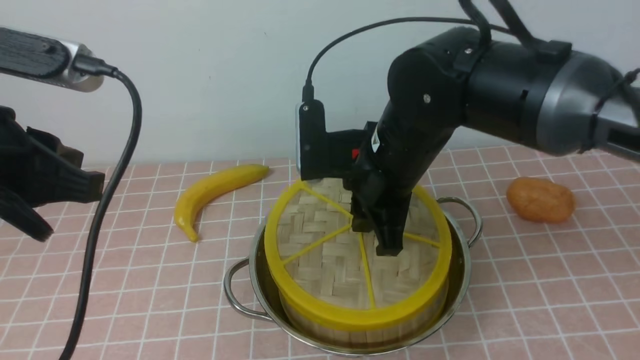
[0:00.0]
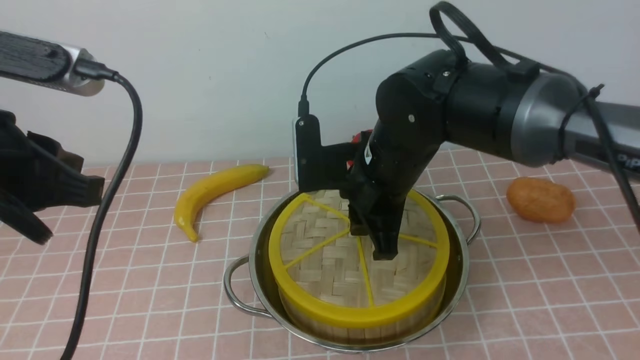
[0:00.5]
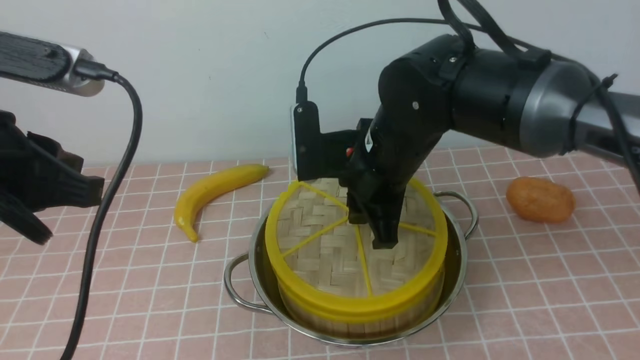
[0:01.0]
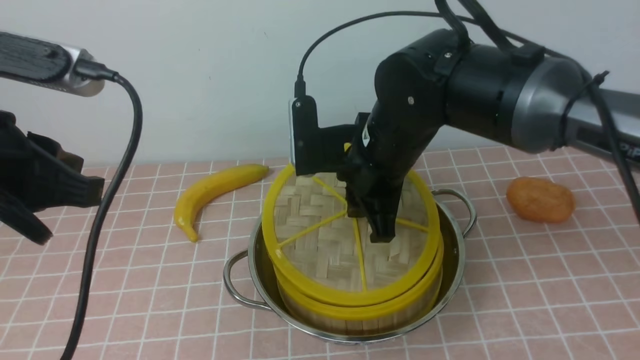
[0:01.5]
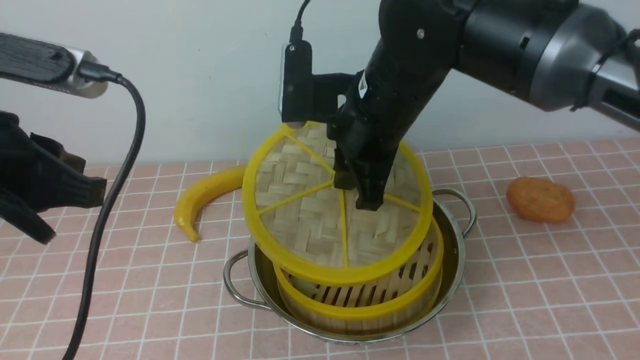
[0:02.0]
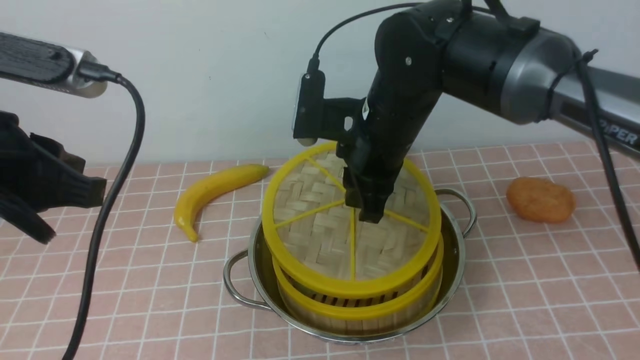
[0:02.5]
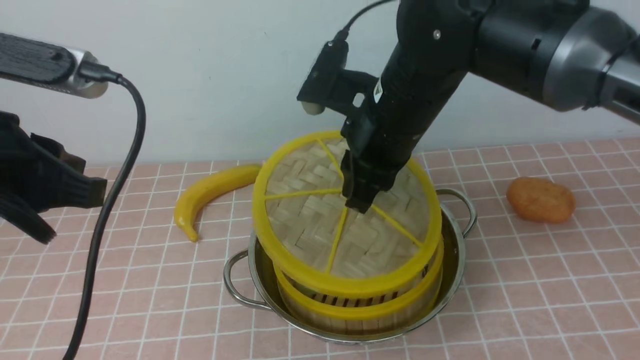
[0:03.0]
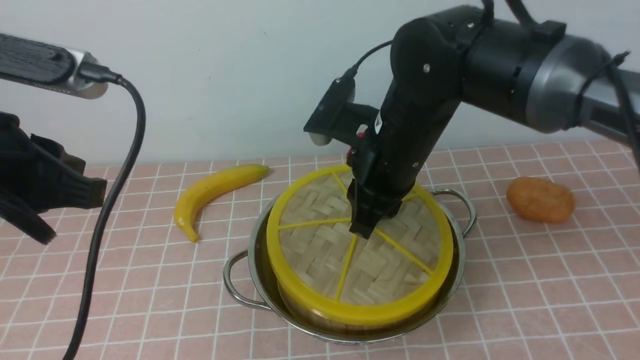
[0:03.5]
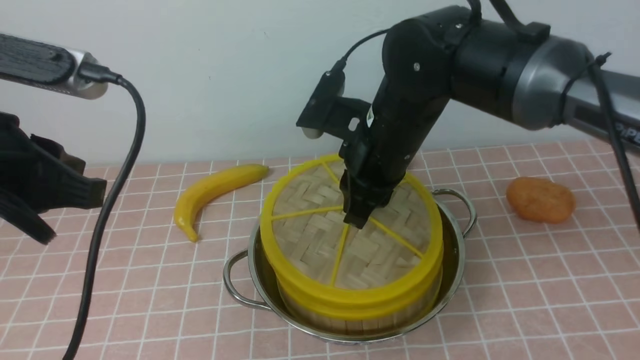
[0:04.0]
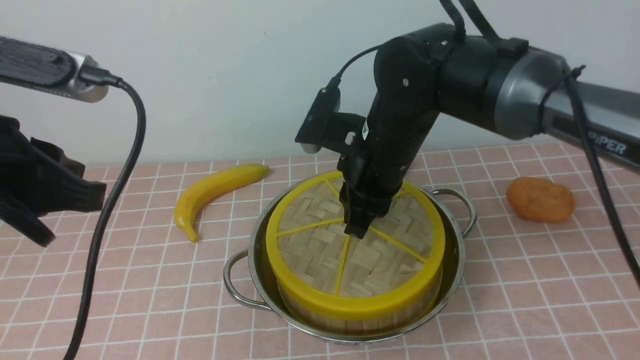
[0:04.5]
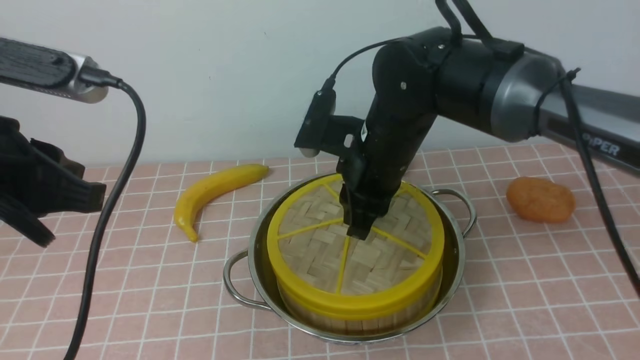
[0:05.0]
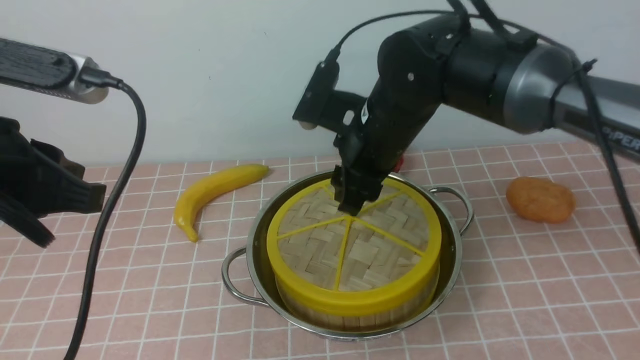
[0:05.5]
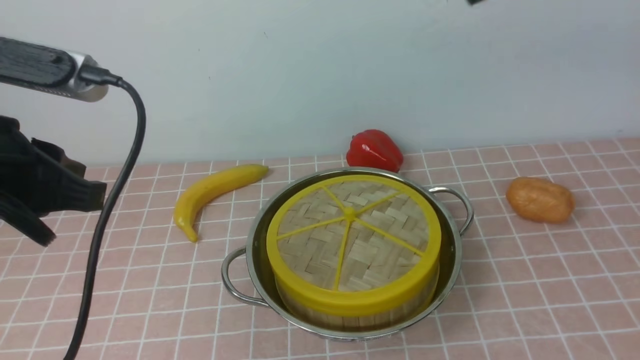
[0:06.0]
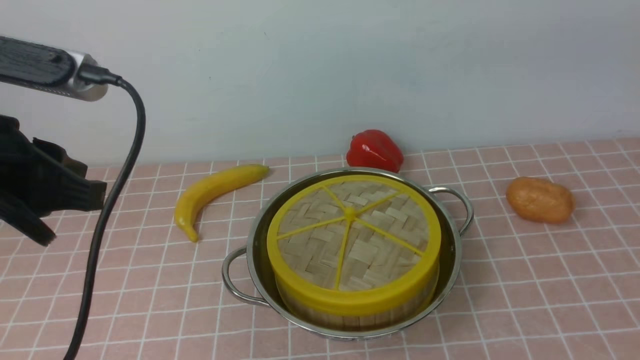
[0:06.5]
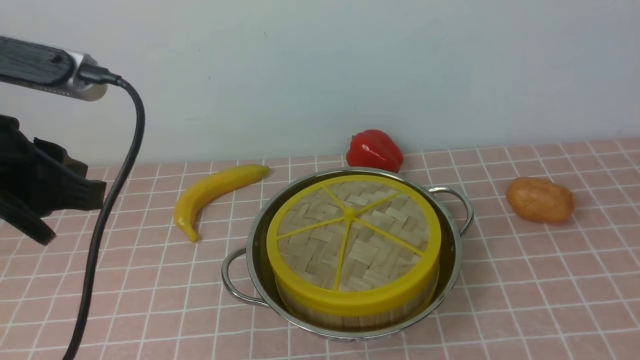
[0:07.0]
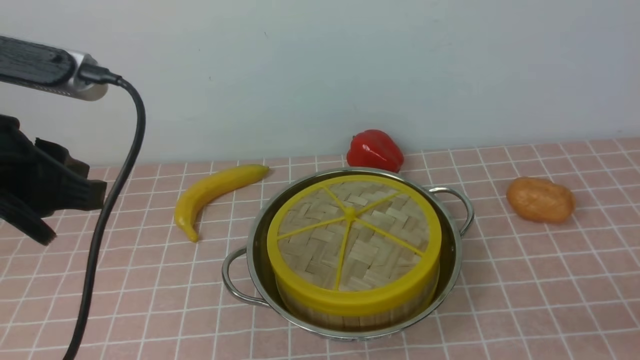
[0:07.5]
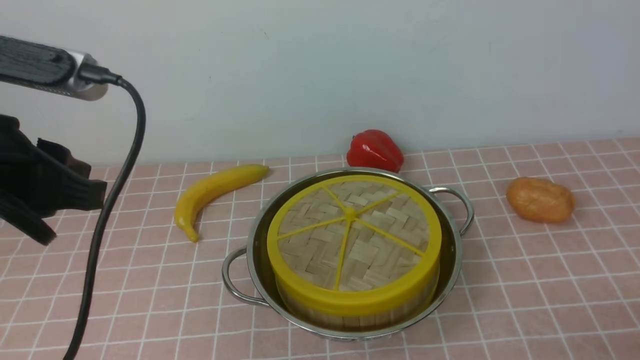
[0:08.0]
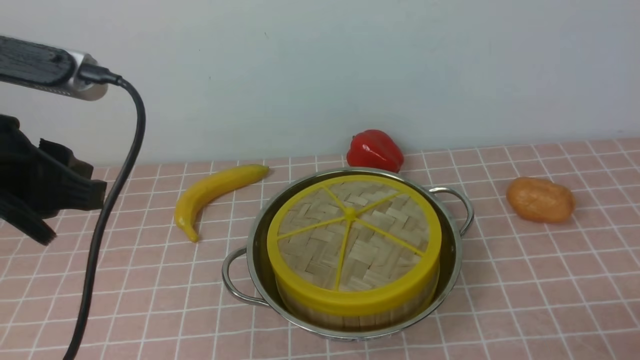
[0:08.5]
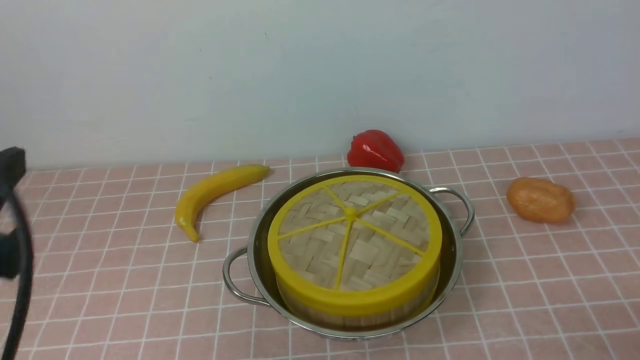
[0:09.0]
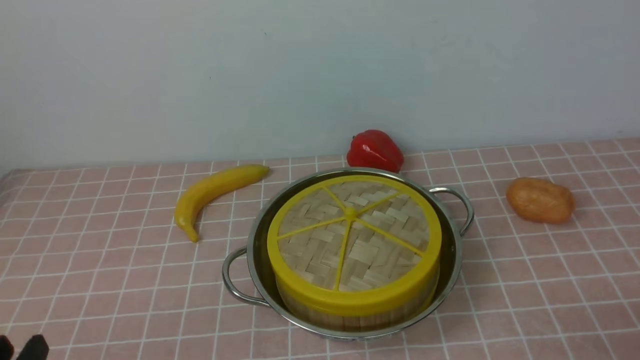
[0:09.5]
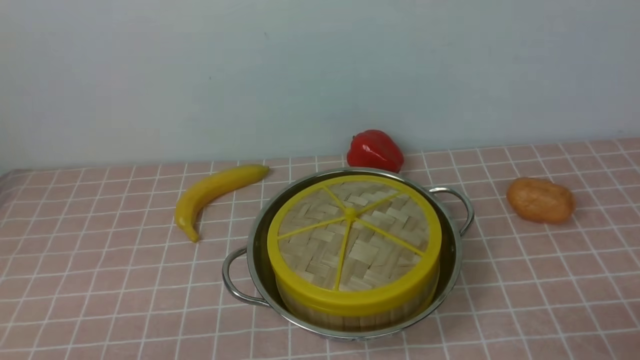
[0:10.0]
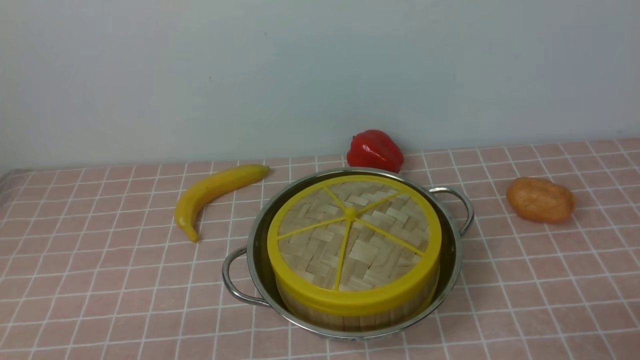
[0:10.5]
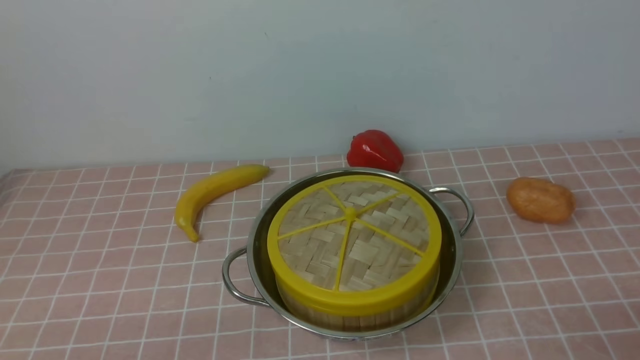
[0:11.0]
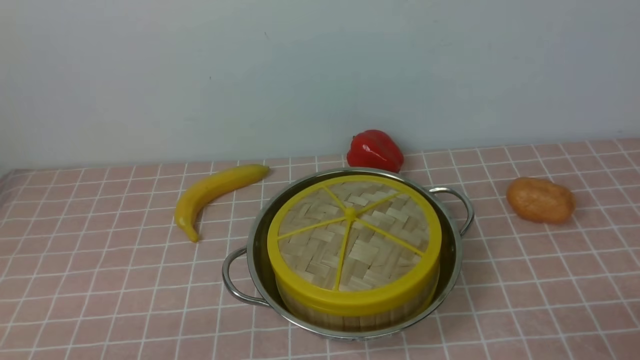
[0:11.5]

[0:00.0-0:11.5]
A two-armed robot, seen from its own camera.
Task of the whole recording: place the steamer in the pot on the pink tablecloth, and put the lid on the steamer.
Step, 0:00.0 to 0:05.5: use the right arm to place the steamer lid on the steamer.
0:04.0 to 0:06.0: The right gripper shifts about 20 cm upward and to the right, and closes up.
0:06.0 to 0:07.5: The right gripper is displaced downward, backward and to the right by some 40 cm, and opens its fingers.
0:07.5 to 0:09.5: The left gripper shifts some 20 cm downward and backward.
